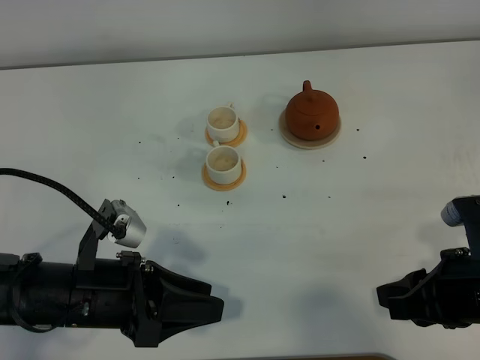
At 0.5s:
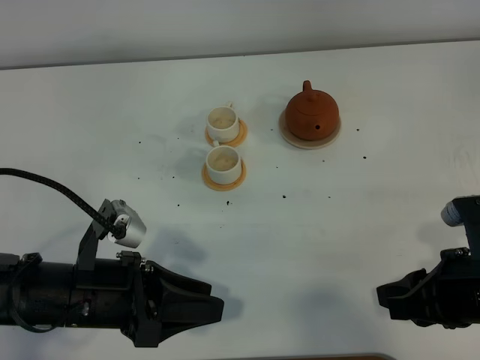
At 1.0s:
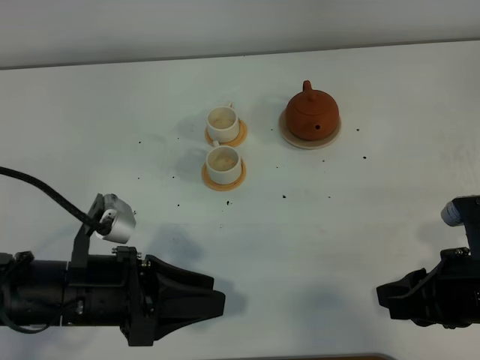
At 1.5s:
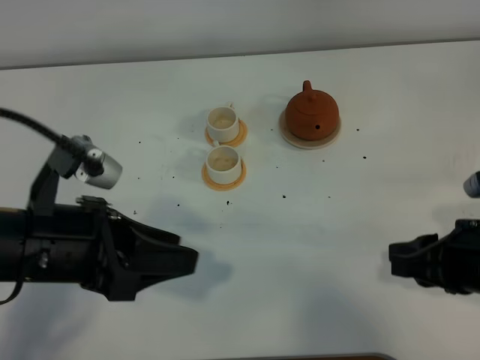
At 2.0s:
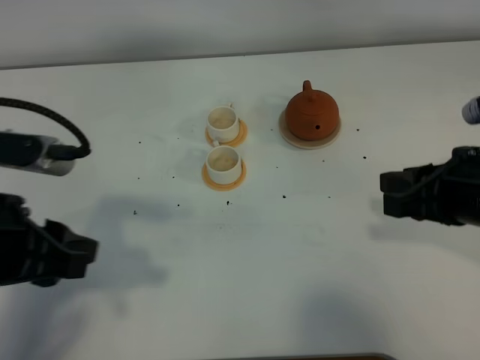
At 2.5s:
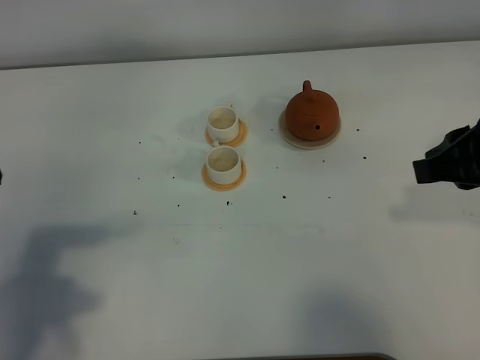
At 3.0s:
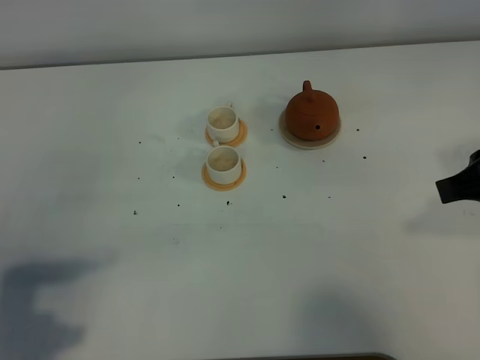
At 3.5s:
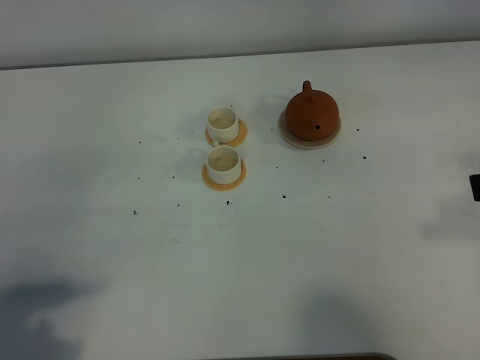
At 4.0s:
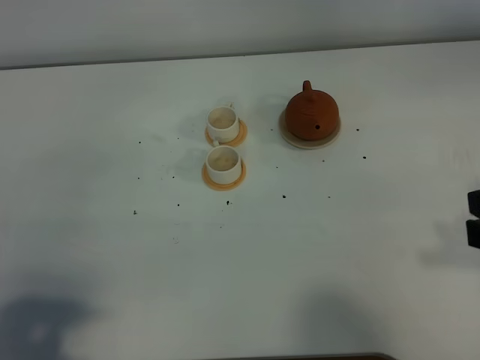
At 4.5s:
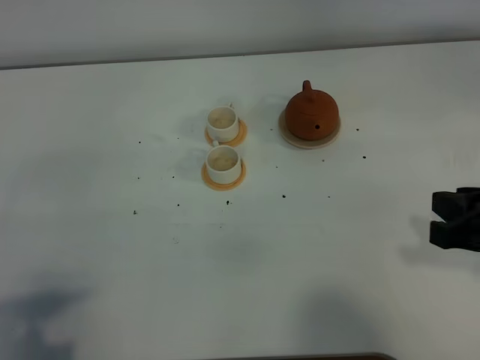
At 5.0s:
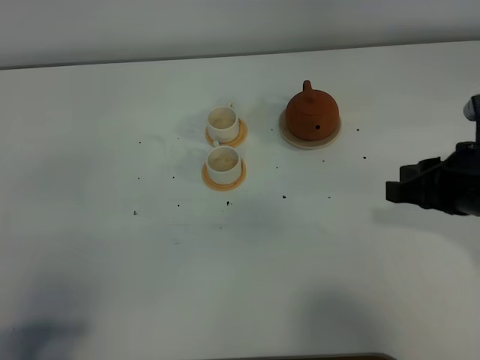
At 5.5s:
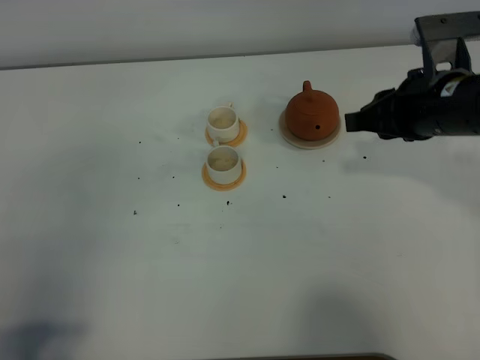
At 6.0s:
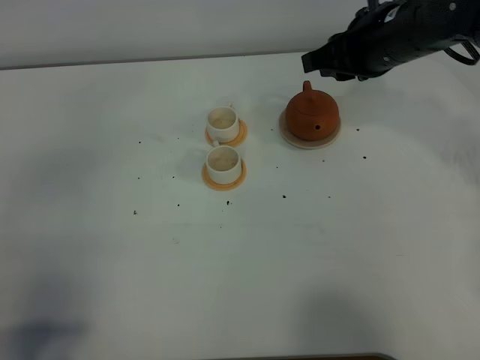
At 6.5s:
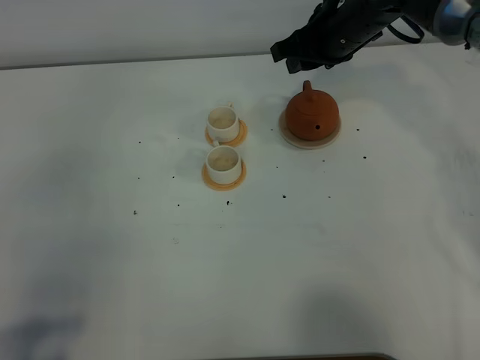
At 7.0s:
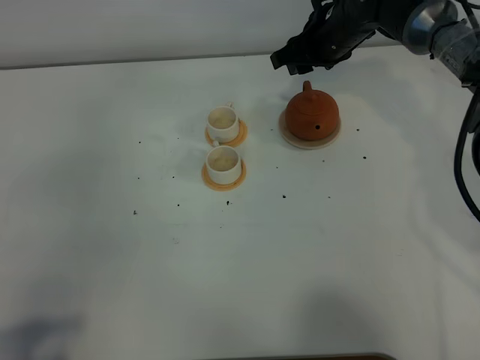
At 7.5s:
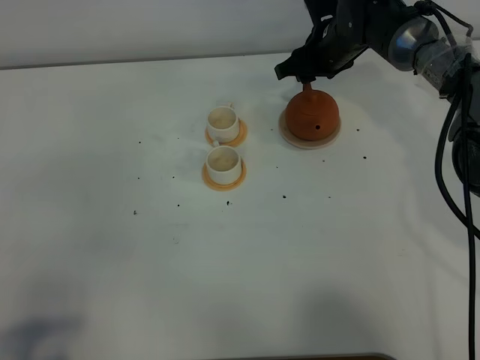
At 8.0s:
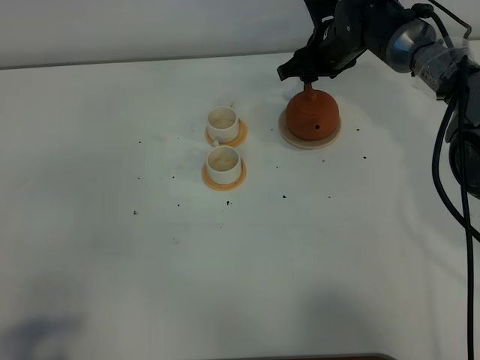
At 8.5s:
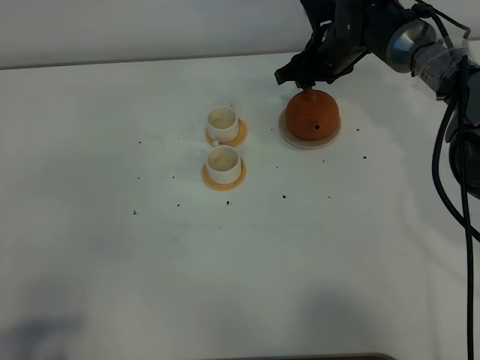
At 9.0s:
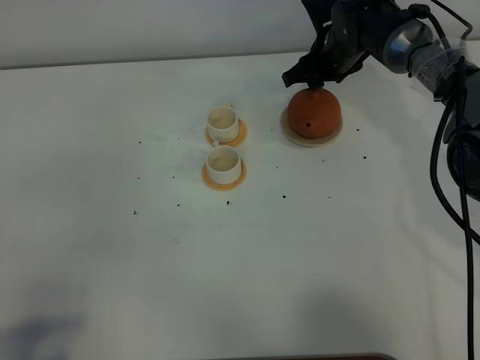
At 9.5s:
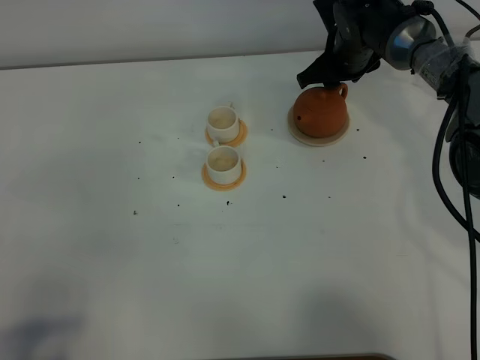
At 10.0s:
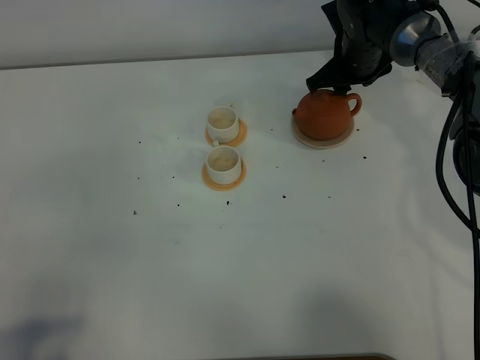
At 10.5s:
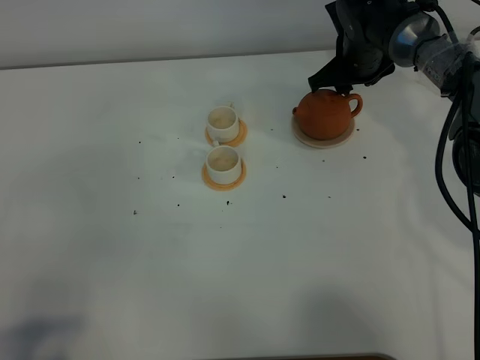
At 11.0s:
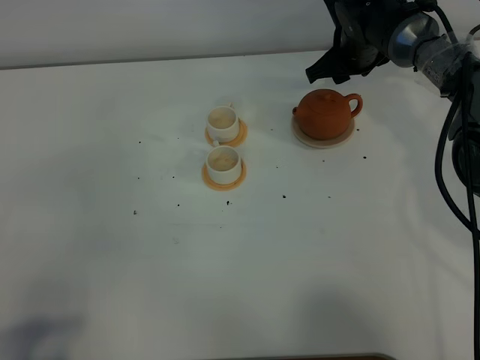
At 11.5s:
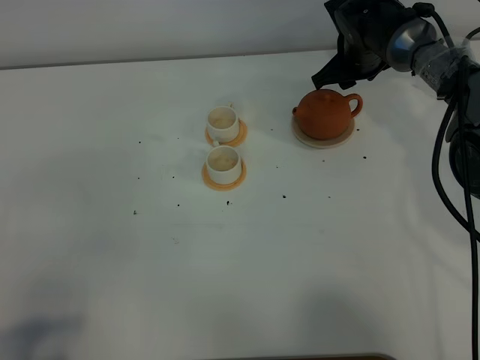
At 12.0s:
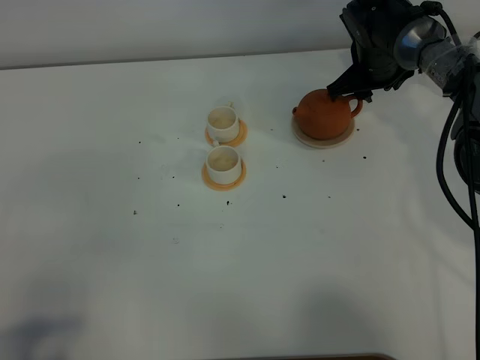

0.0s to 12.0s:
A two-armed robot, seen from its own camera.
Task of the whole recording: grasp the brown teapot and pour the tea into the two white teacups one by one, put the brown teapot back in its original place.
0.0s to 2.0s: The left gripper is displaced upward and to the left by roughly 15 cm, while the right gripper shifts about 10 cm upward and forward.
2.0s to 4.0s: The right gripper shifts about 10 cm backward and upward, while the left gripper moves backward and to the left, about 15 cm.
4.0s to 6.0s: The right gripper moves forward and to the left, about 30 cm.
6.0s to 8.0s: The right gripper shifts roughly 15 cm forward and downward, and opens up.
8.0s to 10.0s: The grippers move only a little.
10.0s to 12.0s: There are only small adjustments of the grippers.

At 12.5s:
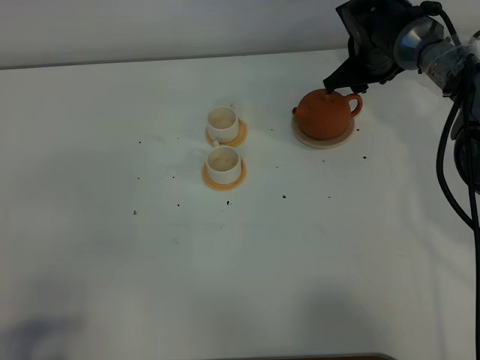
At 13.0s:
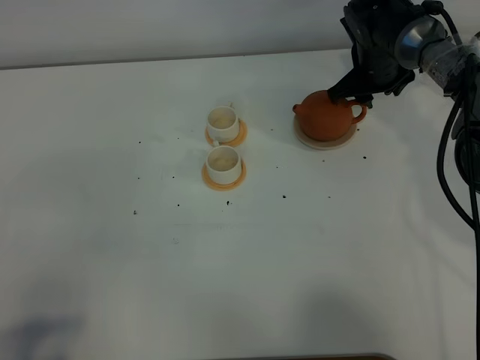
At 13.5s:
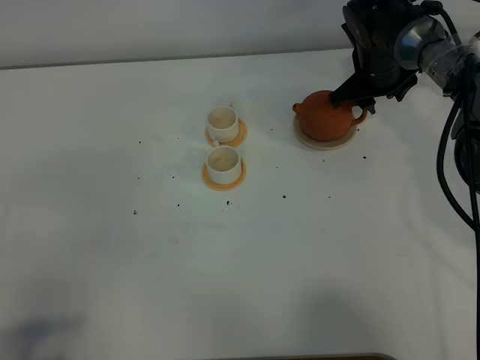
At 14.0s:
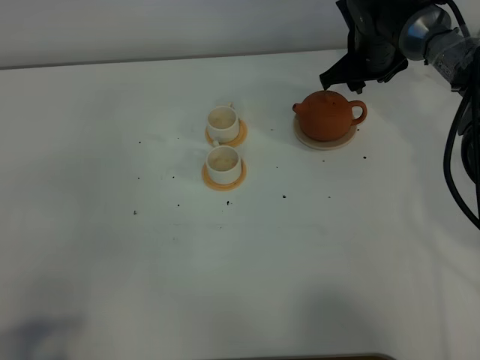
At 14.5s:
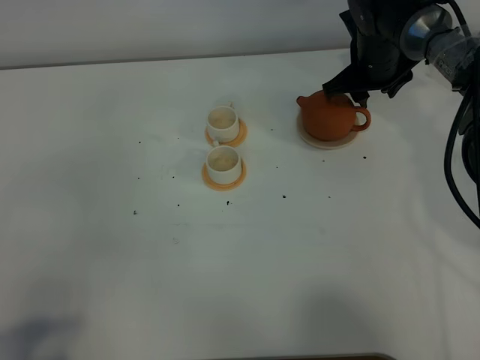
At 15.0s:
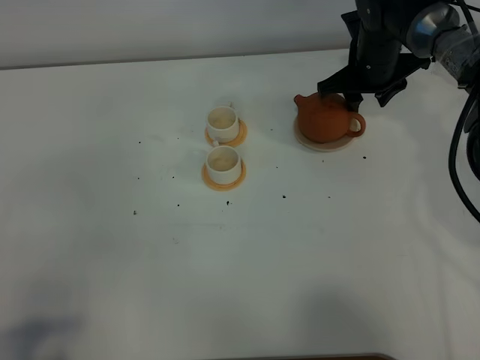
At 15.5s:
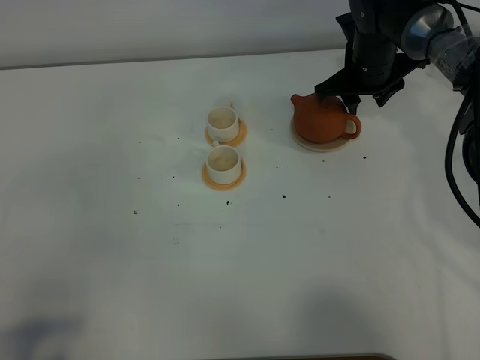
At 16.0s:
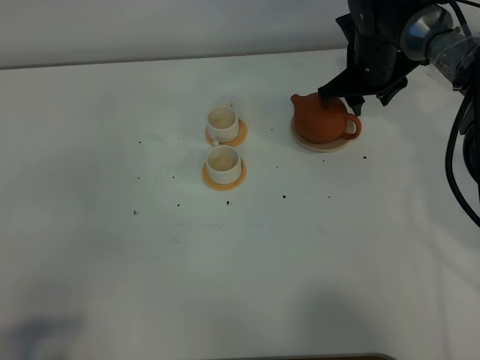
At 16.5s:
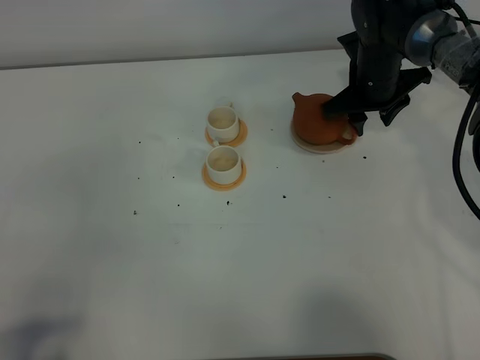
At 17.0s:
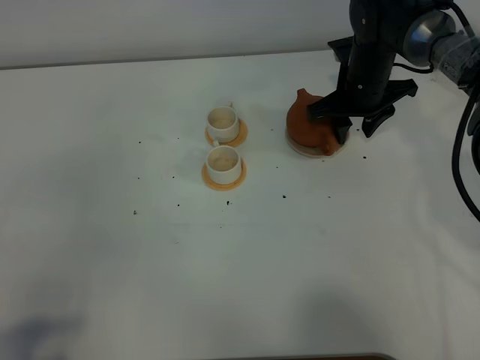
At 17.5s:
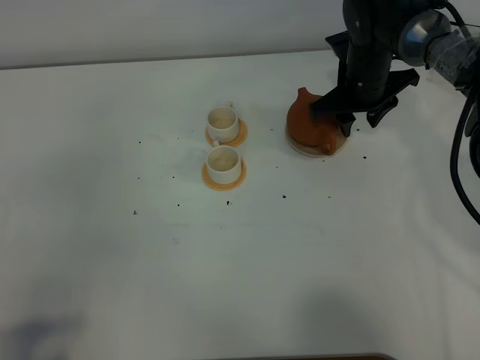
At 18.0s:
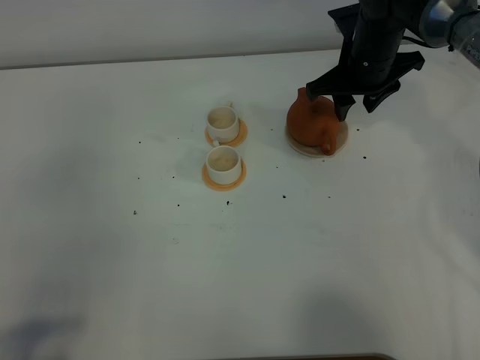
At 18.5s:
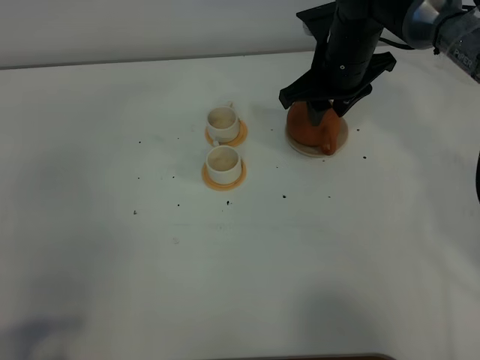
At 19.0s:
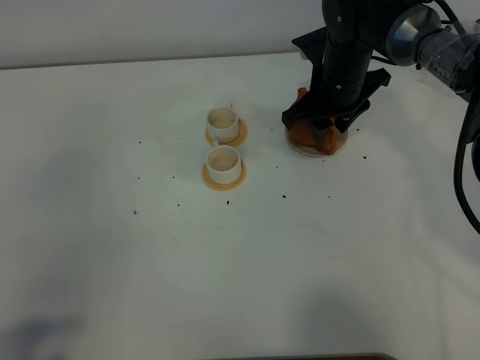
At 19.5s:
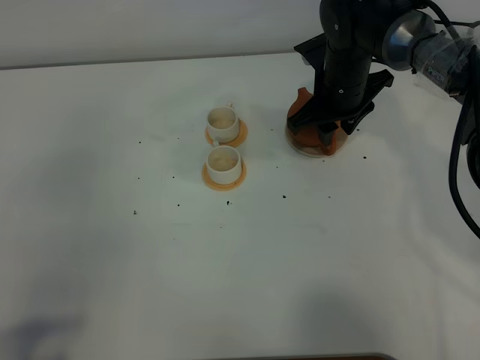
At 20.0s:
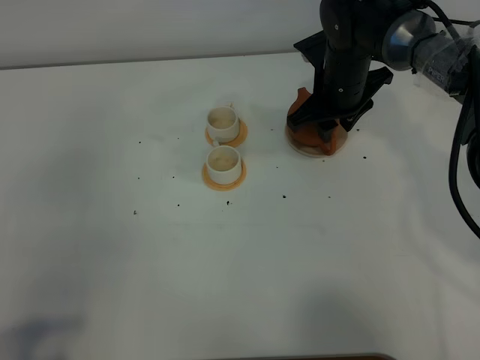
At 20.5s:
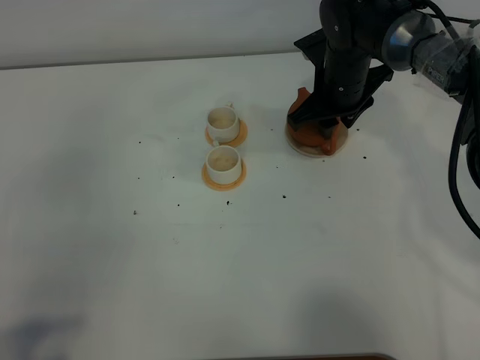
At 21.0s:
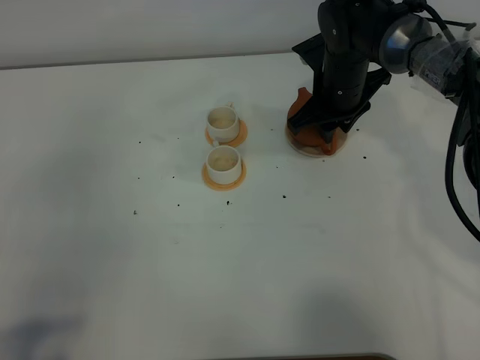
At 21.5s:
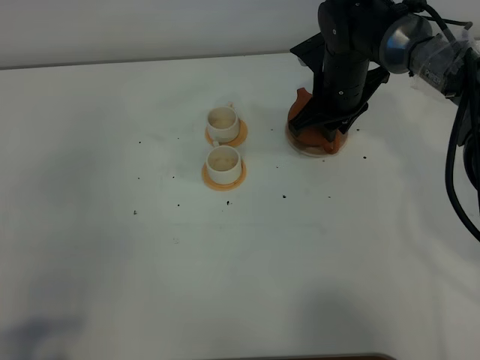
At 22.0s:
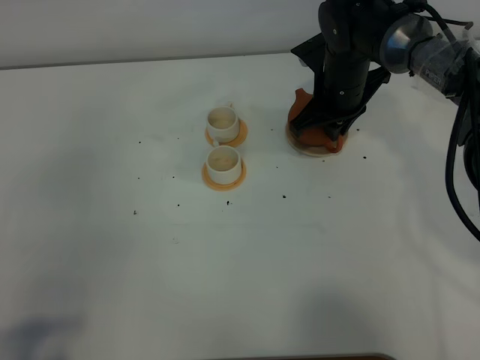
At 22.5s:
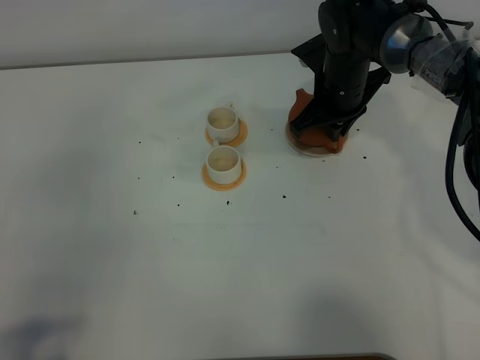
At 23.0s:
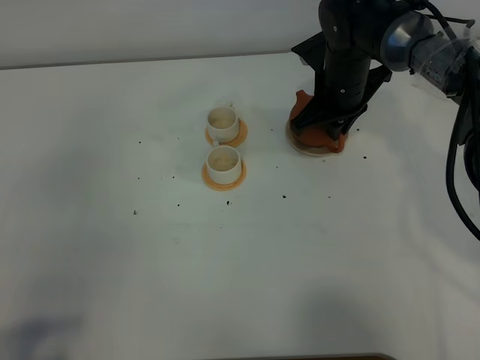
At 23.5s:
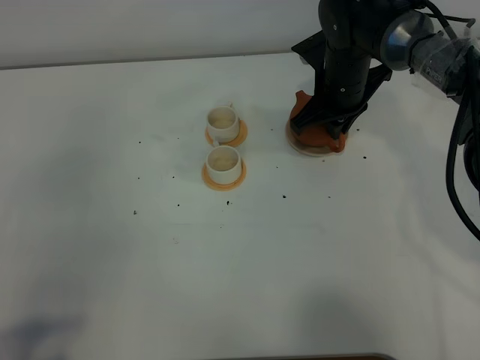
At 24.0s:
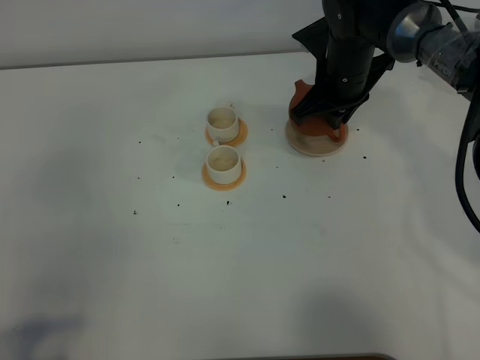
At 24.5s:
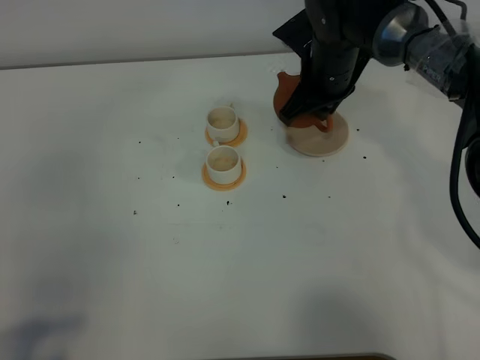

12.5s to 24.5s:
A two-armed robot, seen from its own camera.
Task of the whole recording: grasp the brown teapot and pour the tea into the two white teacups one by one, put the brown teapot back in its original place.
12.5s to 14.5s: The grippers move only a little.
14.5s to 16.5s: The grippers make only small movements.
16.5s to 18.5s: The right gripper moves upward, some 5 cm.
18.5s to 20.5s: The grippers make only small movements.
20.5s to 22.5s: The right gripper closes up.
22.5s to 24.5s: The grippers make only small movements.

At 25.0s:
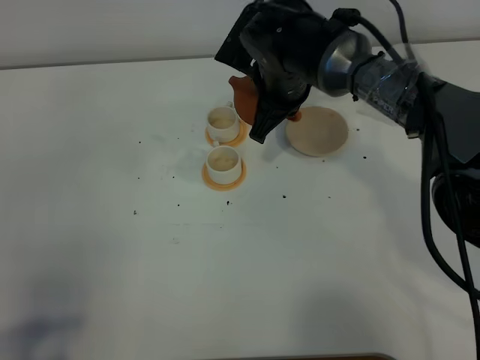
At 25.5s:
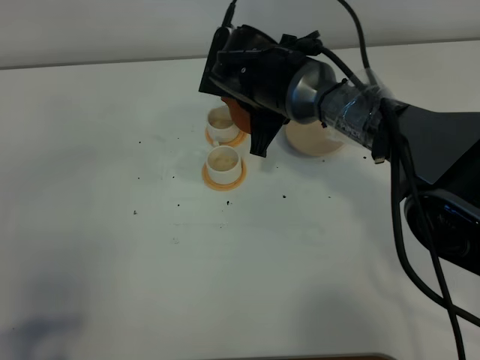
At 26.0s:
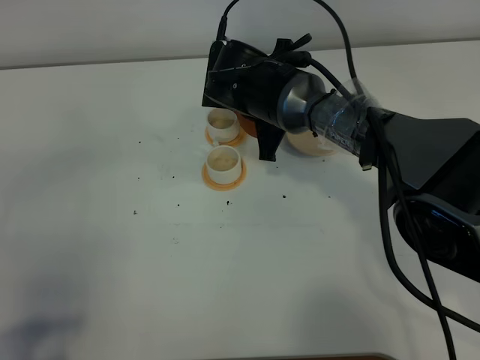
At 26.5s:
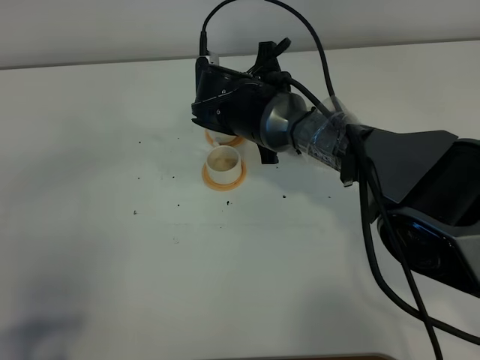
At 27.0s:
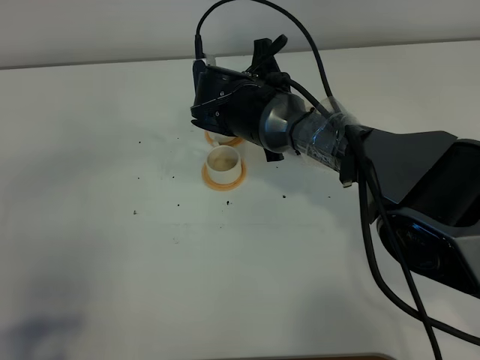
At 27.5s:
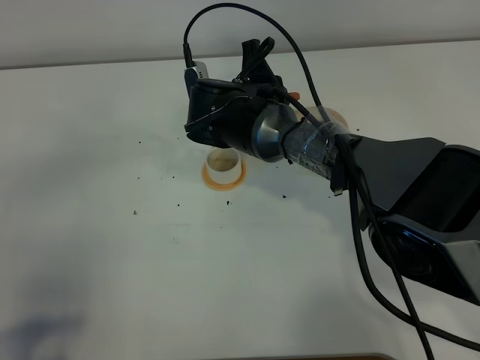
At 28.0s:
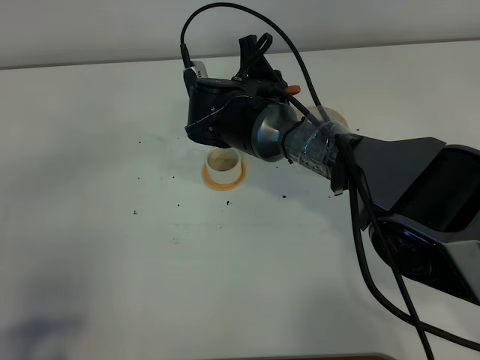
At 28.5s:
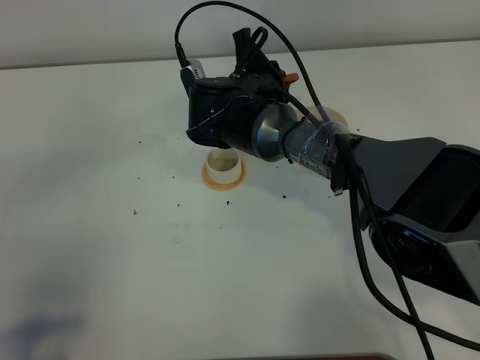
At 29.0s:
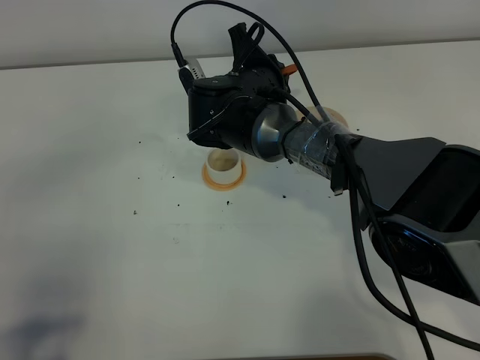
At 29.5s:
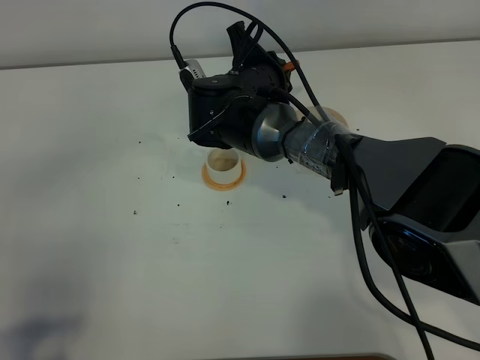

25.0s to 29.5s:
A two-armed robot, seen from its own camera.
Task of the whole recording: grasp the brown teapot and pour the tea into the two white teacups one by one, put the brown teapot back in its original place.
25.0s to 27.0s: The right gripper shifts by some 5 cm.
